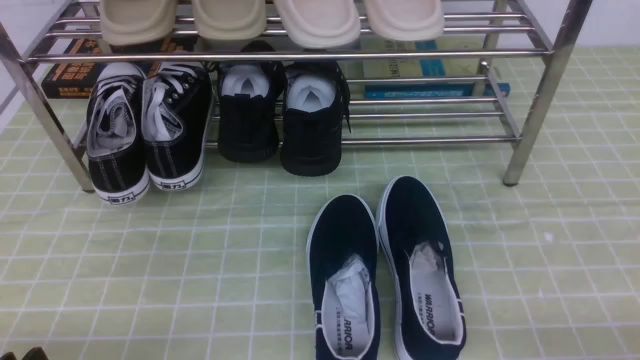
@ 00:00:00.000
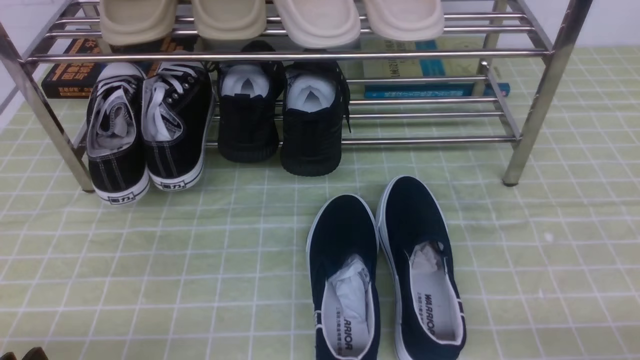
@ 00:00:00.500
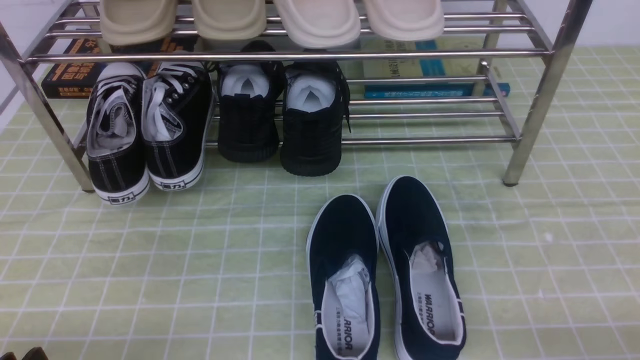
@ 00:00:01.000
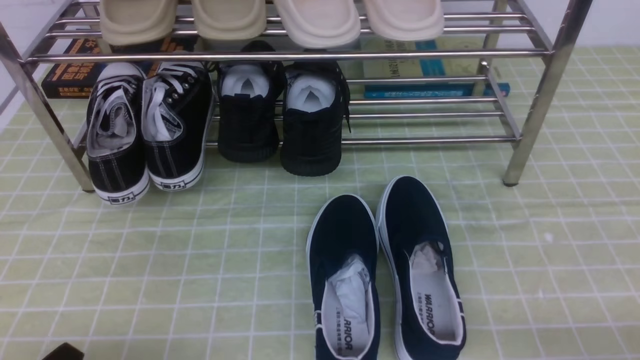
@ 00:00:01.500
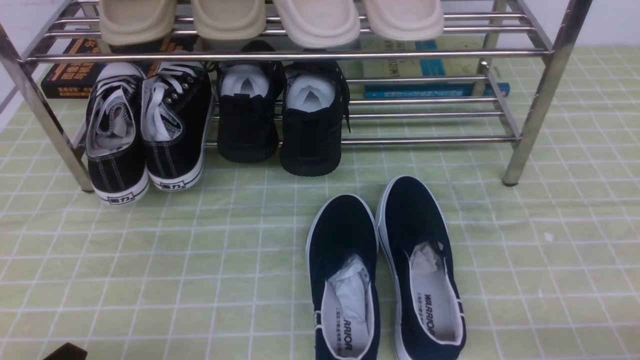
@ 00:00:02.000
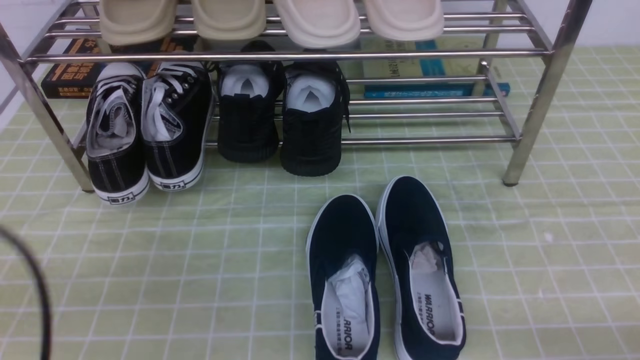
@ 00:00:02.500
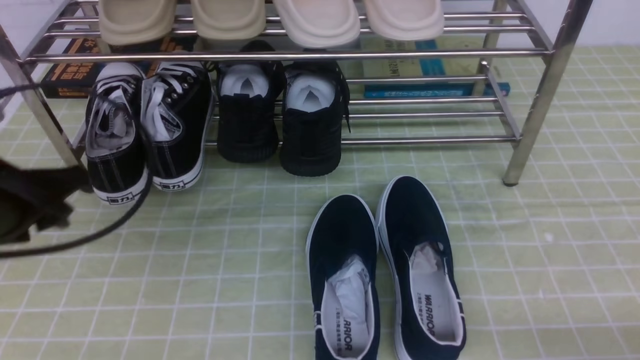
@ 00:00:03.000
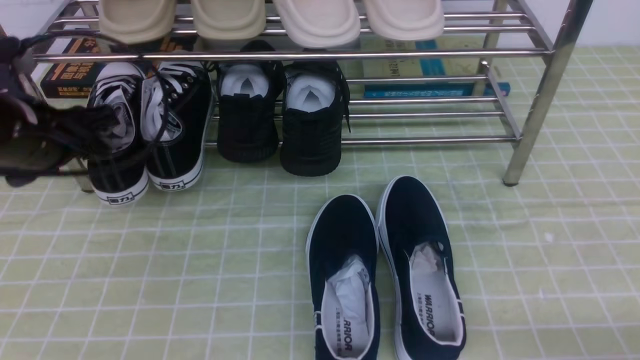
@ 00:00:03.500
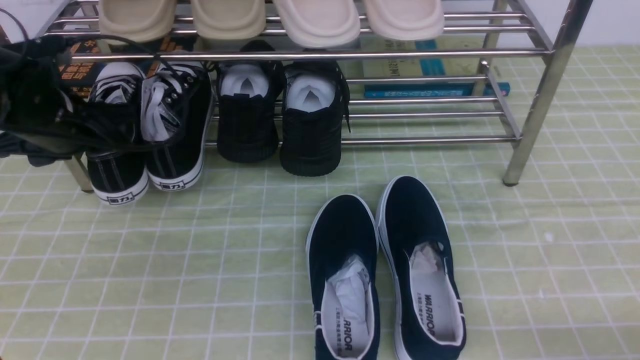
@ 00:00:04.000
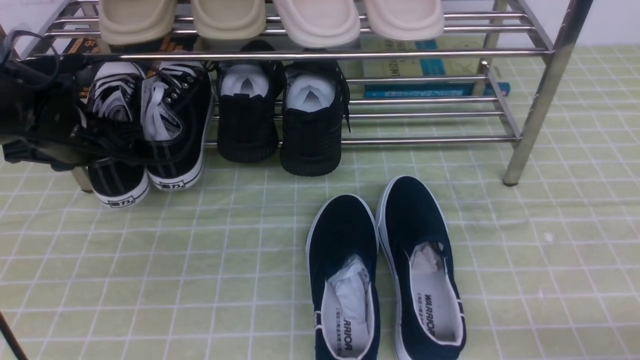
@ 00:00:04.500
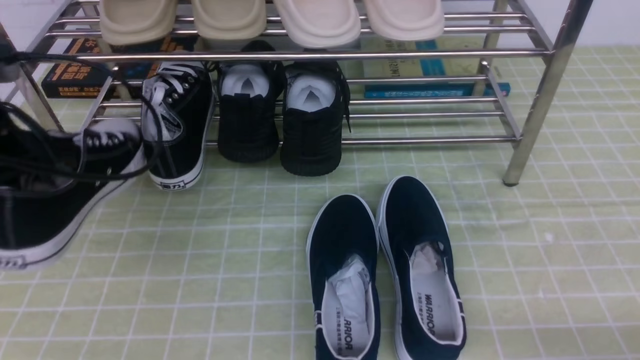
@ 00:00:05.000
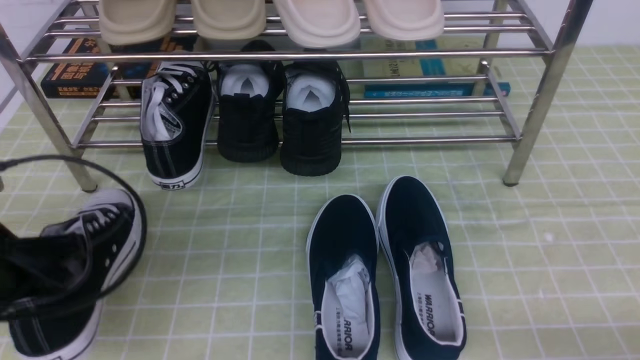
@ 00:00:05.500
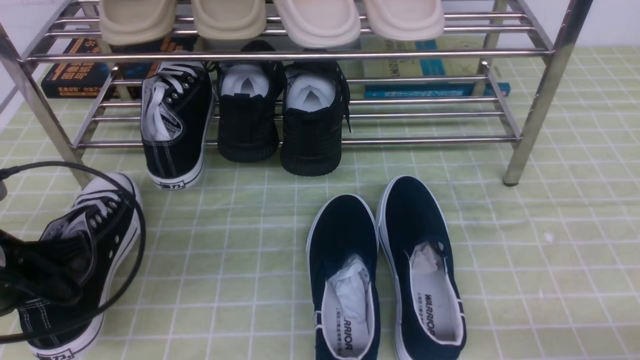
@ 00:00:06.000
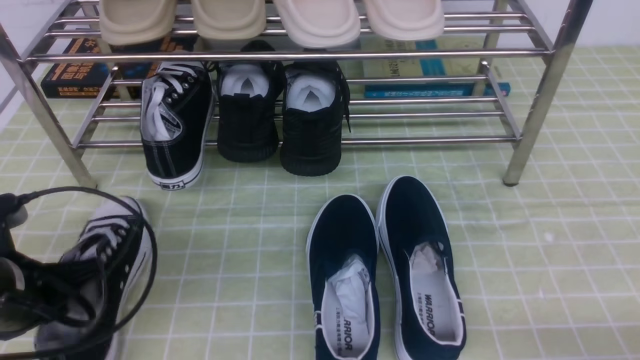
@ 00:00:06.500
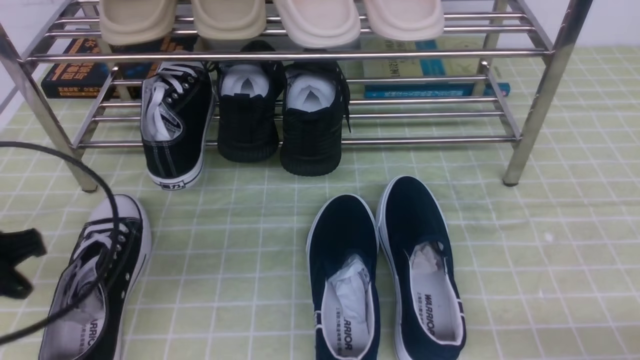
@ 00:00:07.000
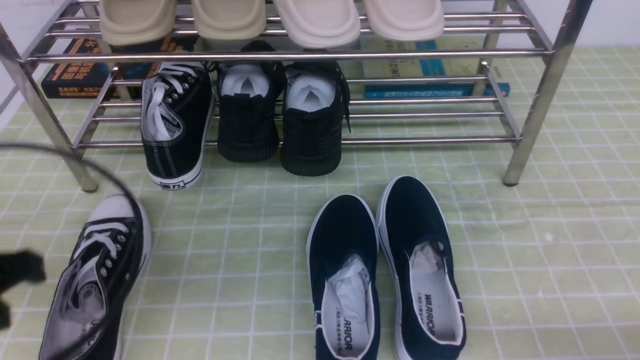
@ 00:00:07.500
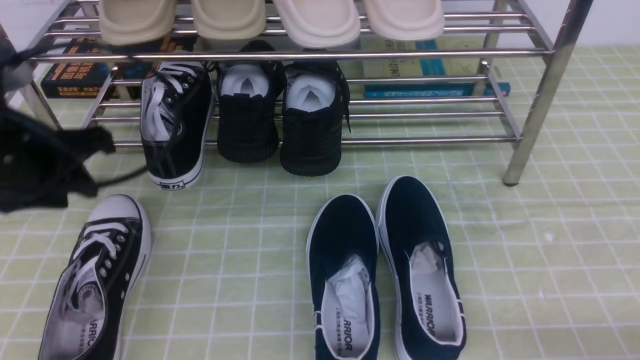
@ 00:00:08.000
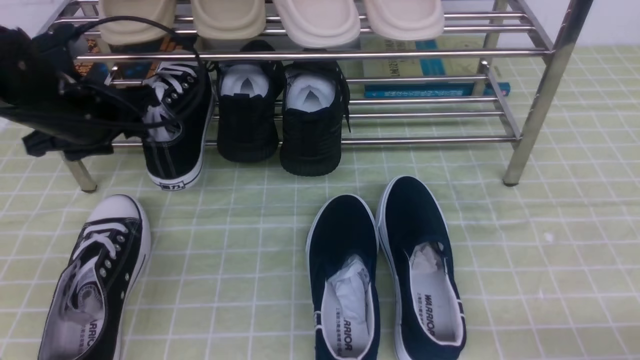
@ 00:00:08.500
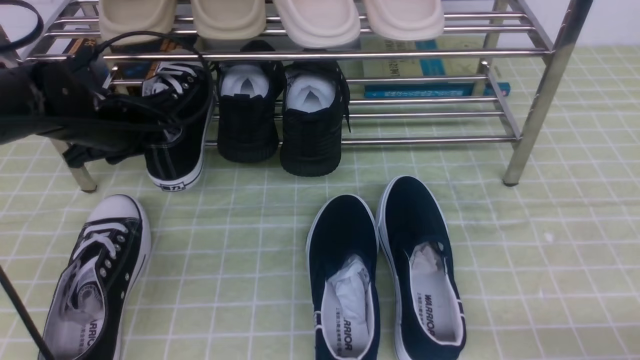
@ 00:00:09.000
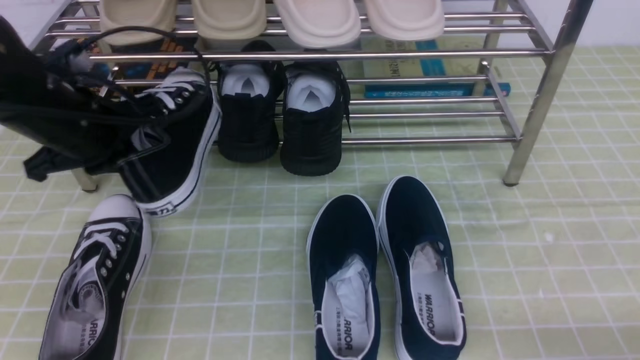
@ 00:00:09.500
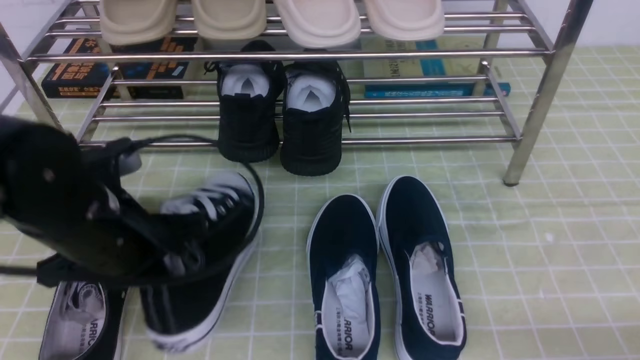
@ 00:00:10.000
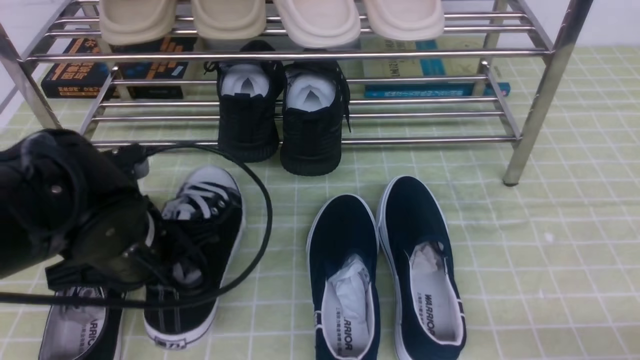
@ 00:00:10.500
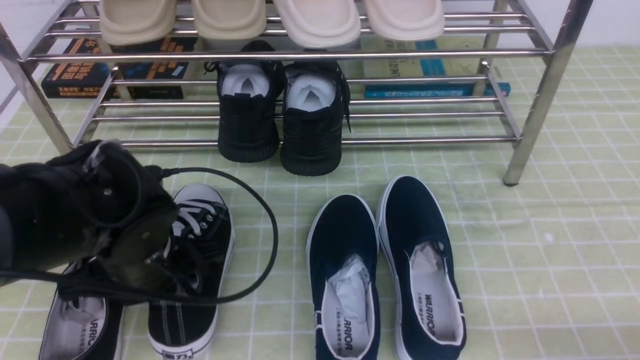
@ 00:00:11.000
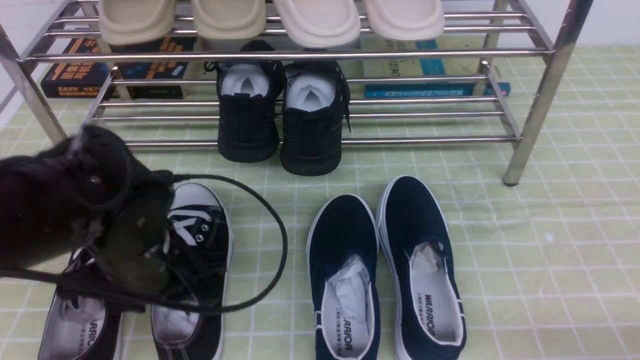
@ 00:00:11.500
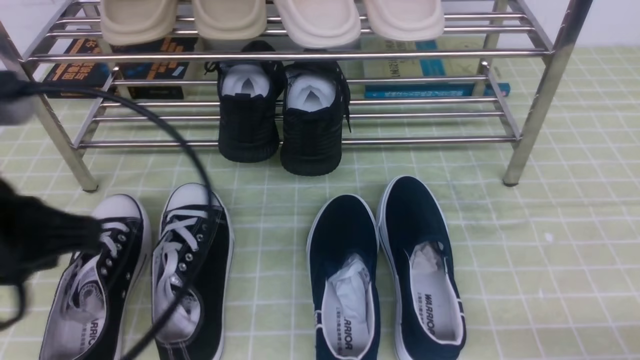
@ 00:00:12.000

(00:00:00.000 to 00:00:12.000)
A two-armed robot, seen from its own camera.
Step, 00:00:00.000 - 00:00:04.500: use the left arm to clamp a shoe on the left side of the shoe rack.
Step, 00:00:05.000 - 00:00:06.500: Use your left arm to remove the clamped shoe from the shoe rack and put it down.
Step, 00:00:07.000 - 00:00:09.000: use the left arm to clamp a shoe on the left side of the shoe rack.
Step, 00:00:09.500 - 00:00:11.000: Use your left arm to remove the clamped shoe from the shoe rack and put it down.
00:00:02.000 - 00:00:04.000: The left gripper heads forward, covering some 30 cm, and opens its fingers.
00:00:04.000 - 00:00:06.000: The left gripper heads backward, covering some 15 cm, and closes up.
00:00:06.000 - 00:00:08.000: The left gripper travels upward and forward by about 10 cm, and opens its fingers.
00:00:08.000 - 00:00:10.000: The left gripper moves to the right and downward, approximately 10 cm, goes forward and returns, roughly 10 cm each way, and closes up.
00:00:10.000 - 00:00:12.000: The left gripper is displaced upward and backward by approximately 15 cm.

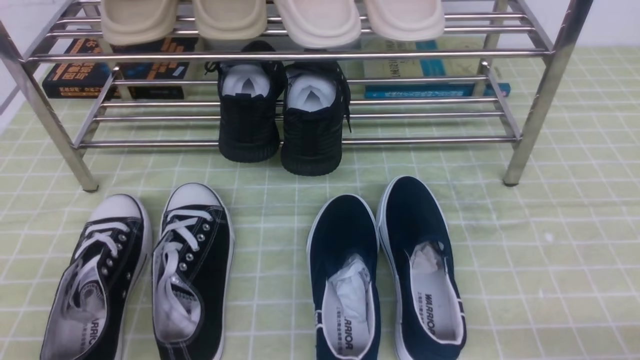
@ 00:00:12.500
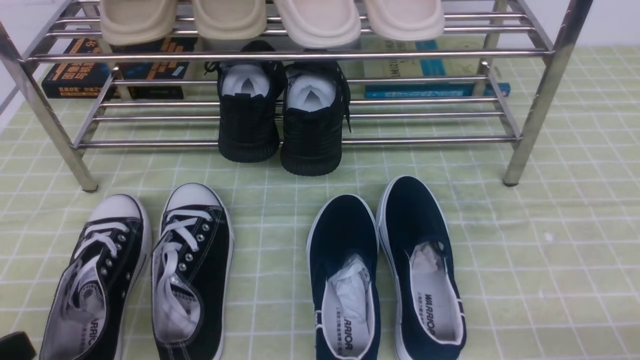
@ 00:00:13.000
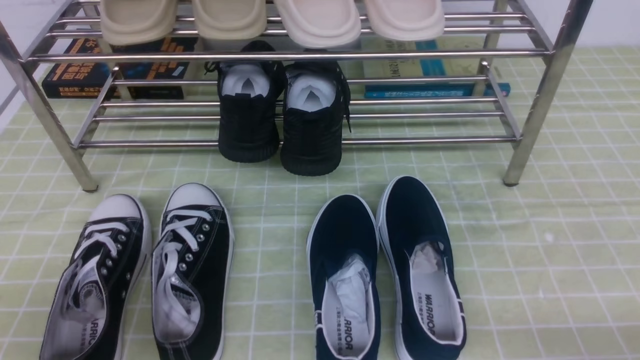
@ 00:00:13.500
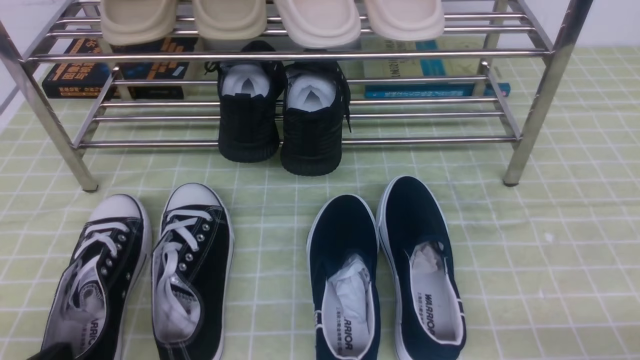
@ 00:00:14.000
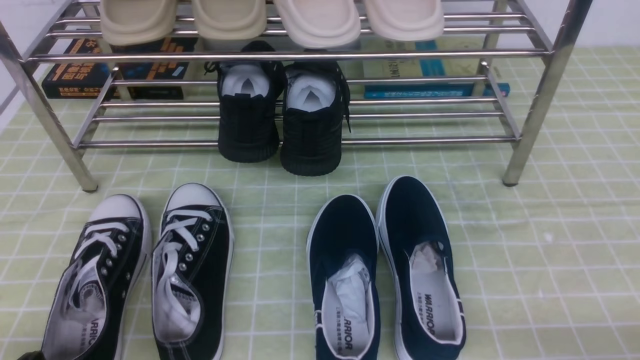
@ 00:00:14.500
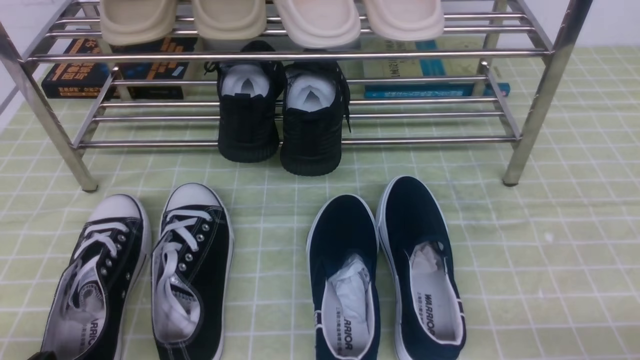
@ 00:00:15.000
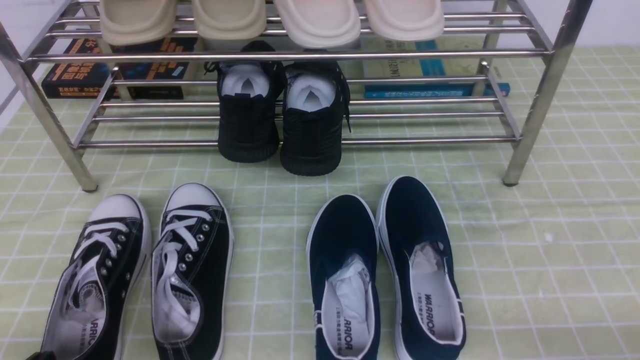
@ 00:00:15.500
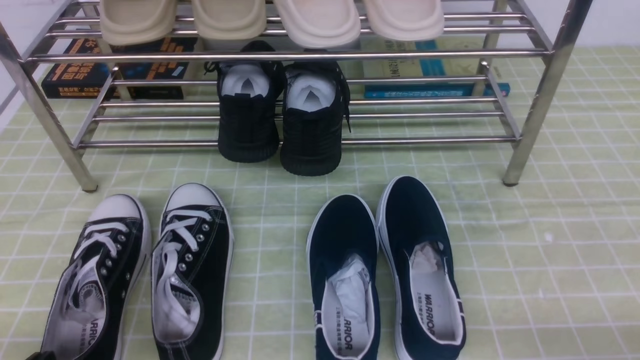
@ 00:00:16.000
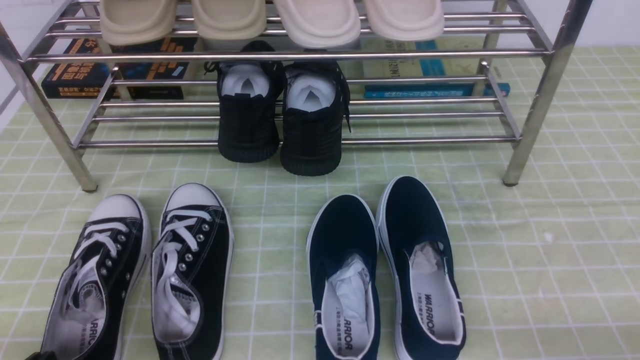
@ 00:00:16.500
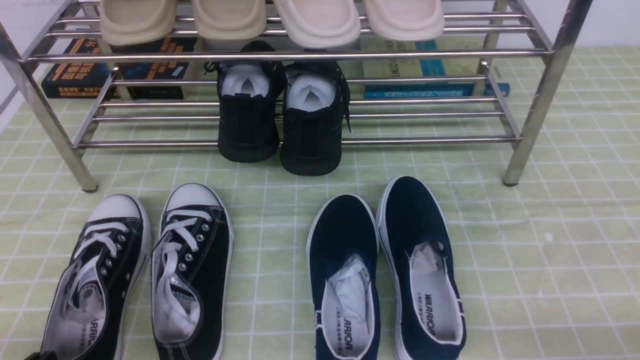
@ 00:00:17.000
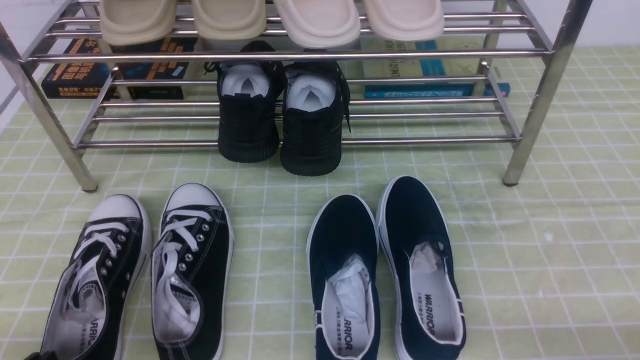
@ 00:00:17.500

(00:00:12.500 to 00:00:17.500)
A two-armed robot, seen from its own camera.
00:00:15.000 - 00:00:17.500: Neither gripper changes place.
